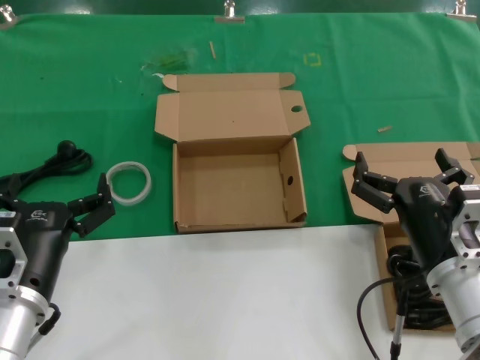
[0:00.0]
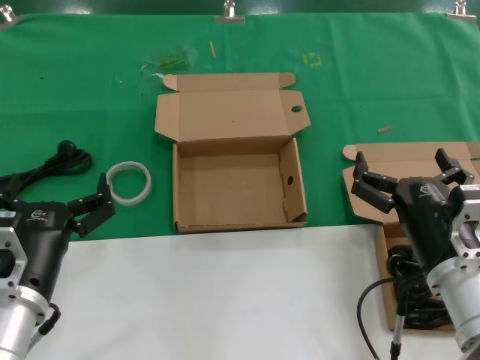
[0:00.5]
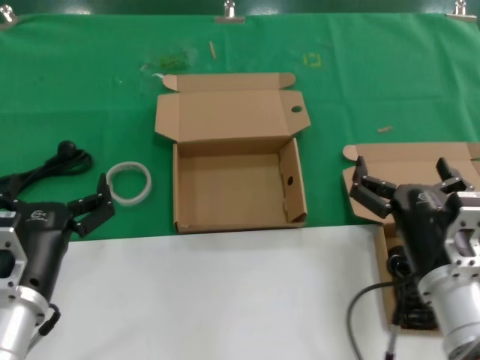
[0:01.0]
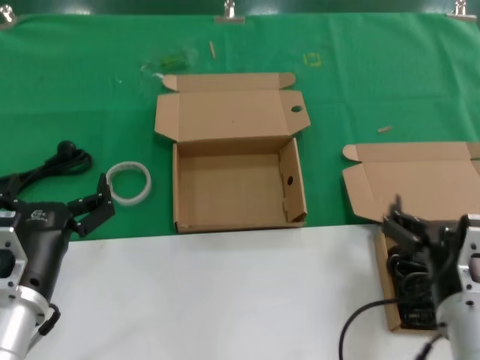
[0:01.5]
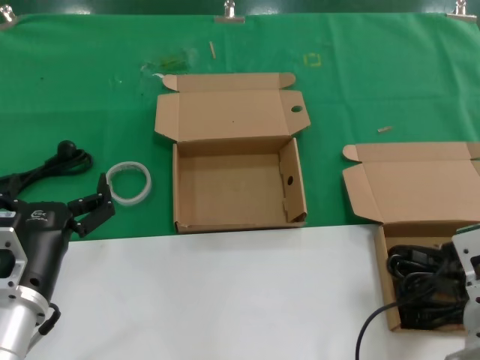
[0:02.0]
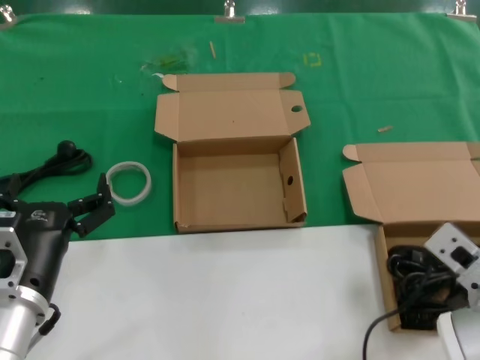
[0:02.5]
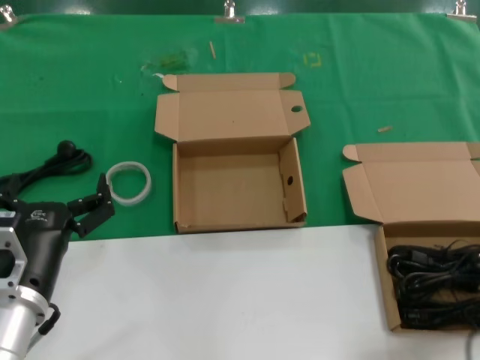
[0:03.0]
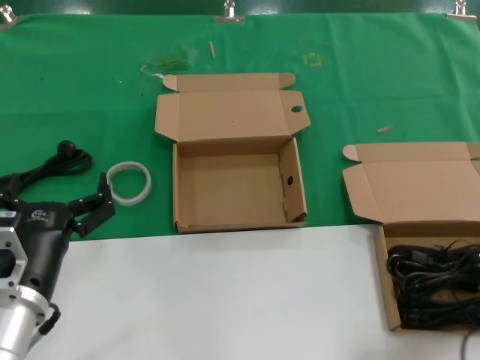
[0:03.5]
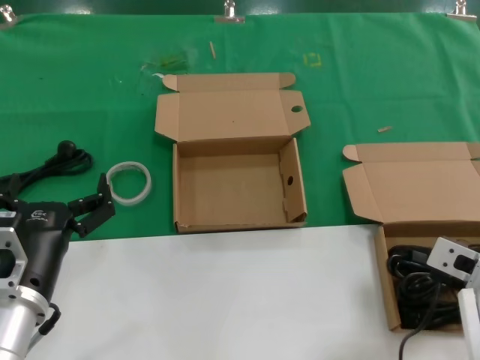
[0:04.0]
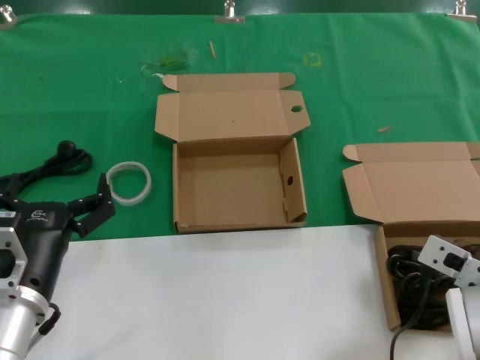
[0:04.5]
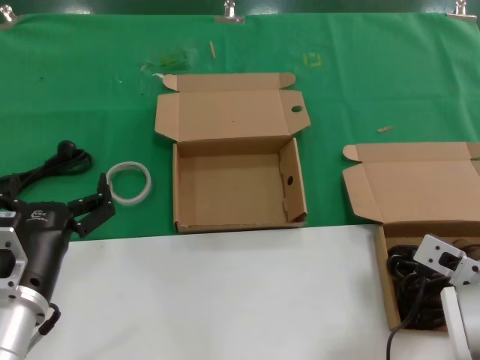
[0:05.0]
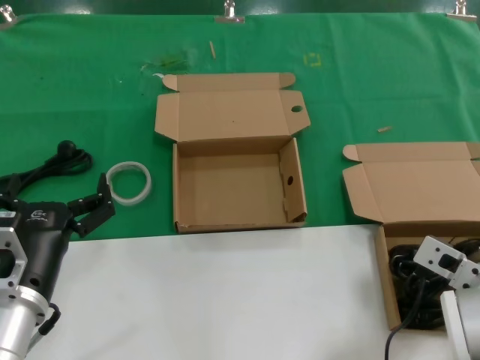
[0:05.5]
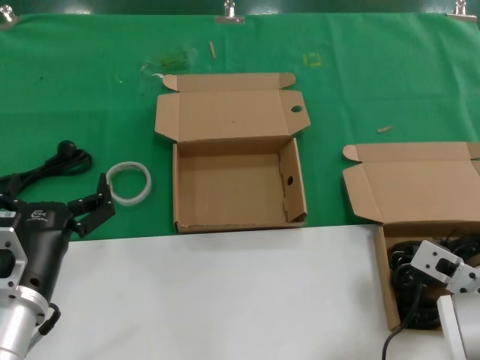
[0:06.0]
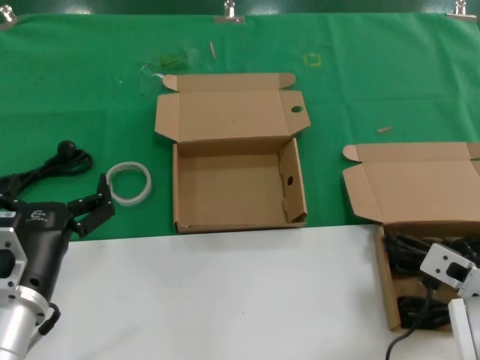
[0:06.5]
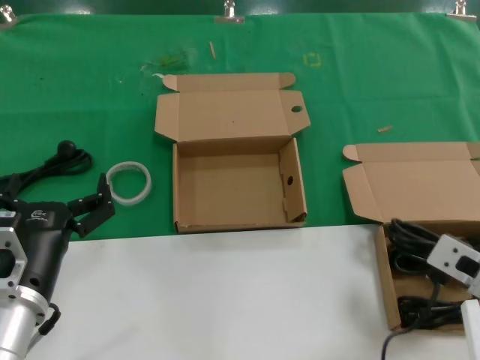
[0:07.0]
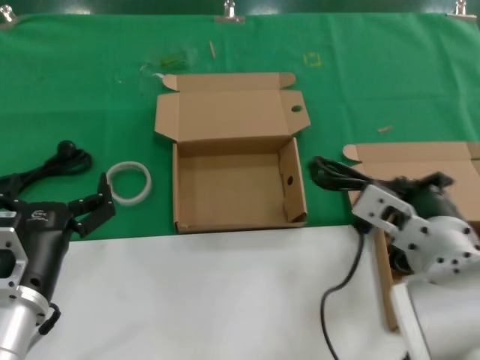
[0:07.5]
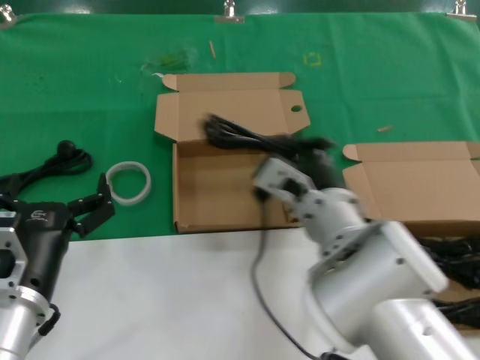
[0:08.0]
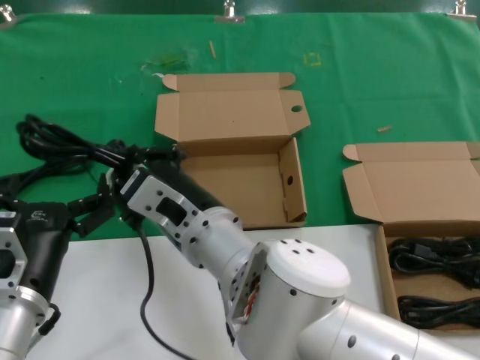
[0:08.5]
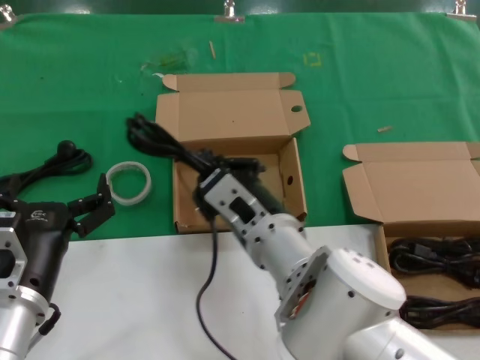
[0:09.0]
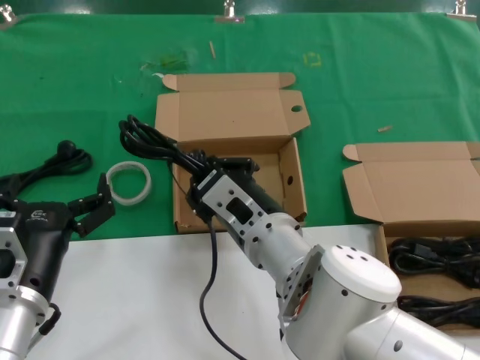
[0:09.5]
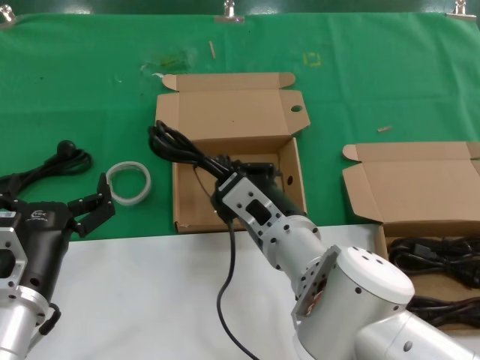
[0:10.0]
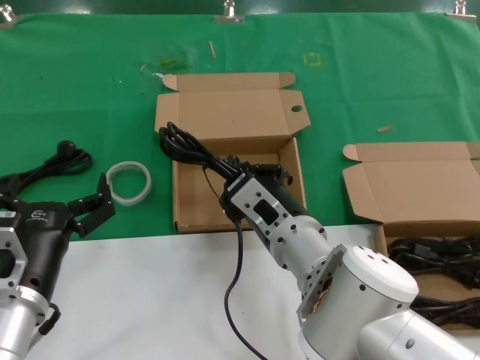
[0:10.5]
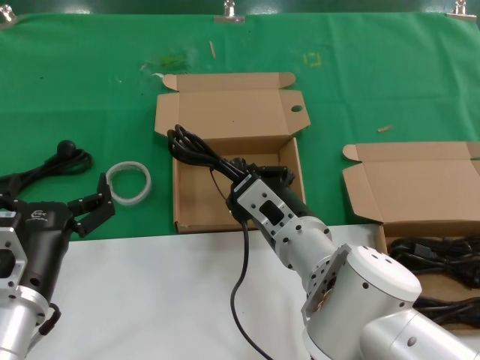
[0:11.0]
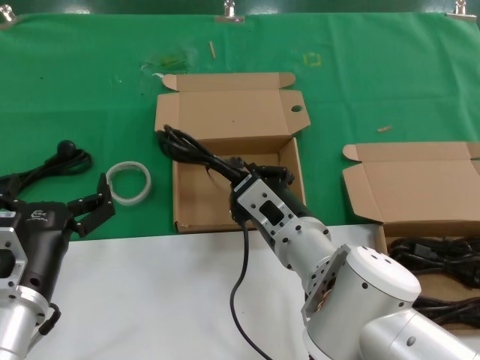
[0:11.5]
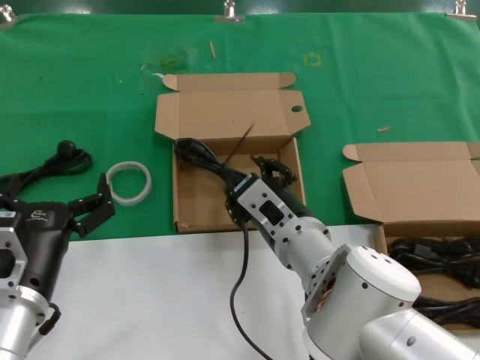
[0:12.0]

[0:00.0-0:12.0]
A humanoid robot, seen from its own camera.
Task of the whole recording: take the parts from the box containing them and put them into an empty box.
Step, 0:00.0 to 0:05.5: Grasp the data cable.
0:04.0 to 0:06.0: The hands make only small movements.
0:06.0 to 0:08.0: The right hand goes some 15 cm to the left.
0:10.0 to 0:12.0: The hands stay close to where they were, moving slightly.

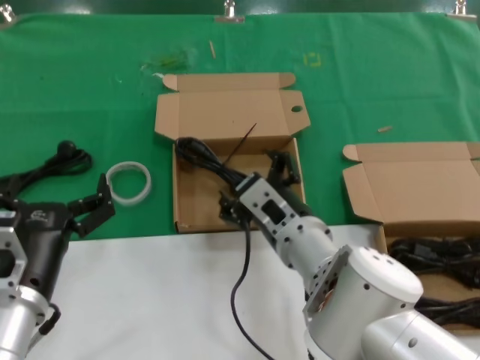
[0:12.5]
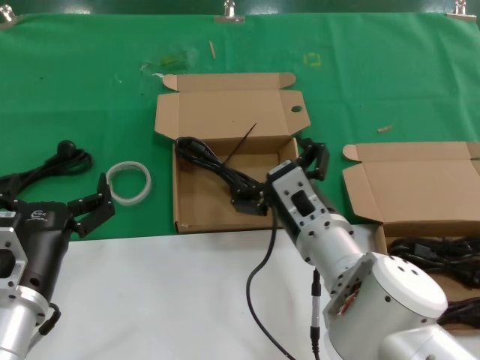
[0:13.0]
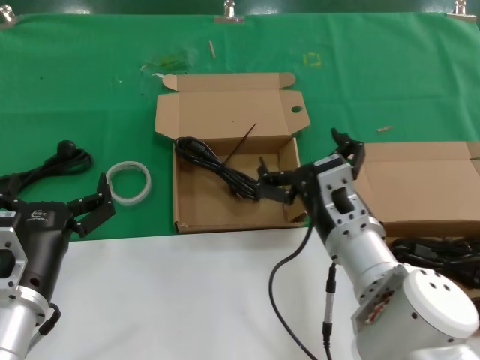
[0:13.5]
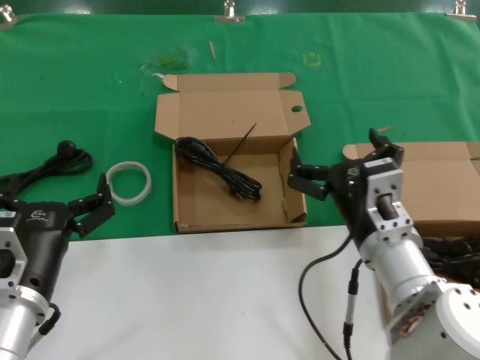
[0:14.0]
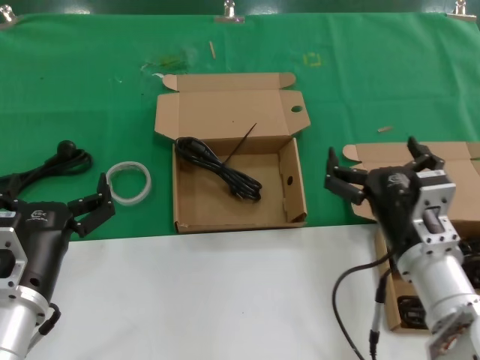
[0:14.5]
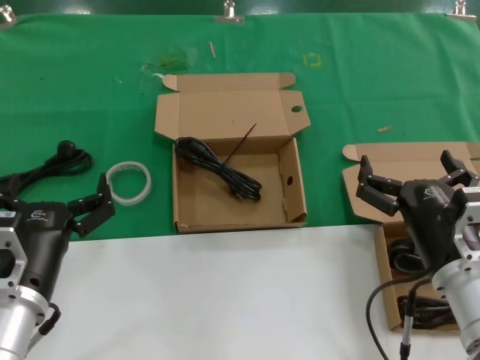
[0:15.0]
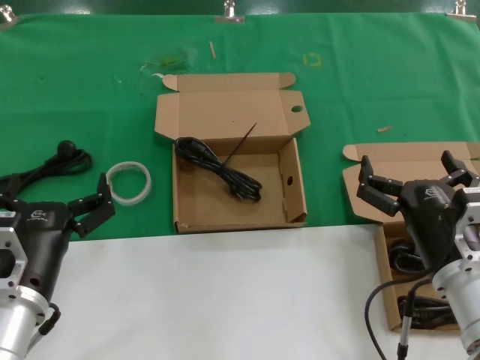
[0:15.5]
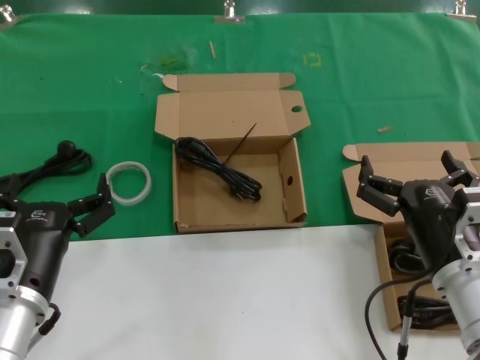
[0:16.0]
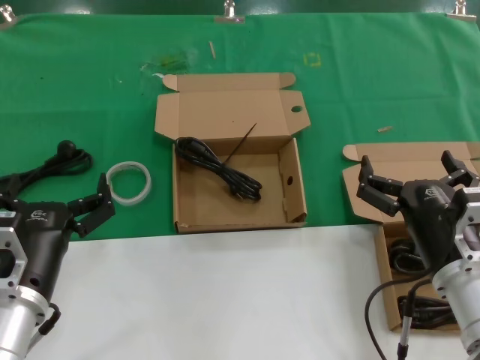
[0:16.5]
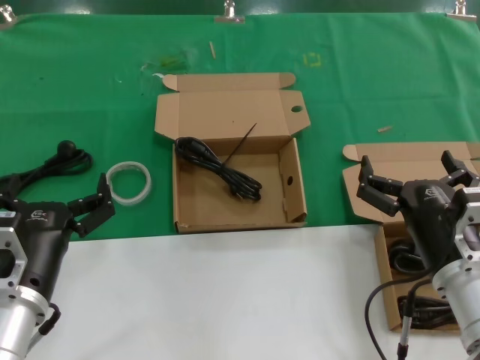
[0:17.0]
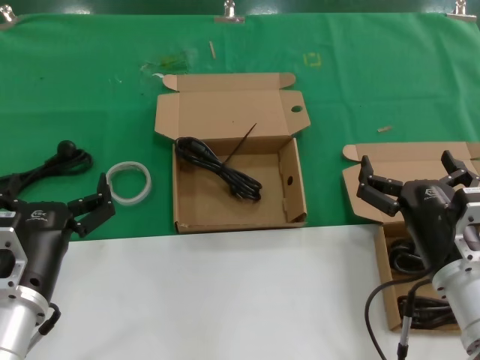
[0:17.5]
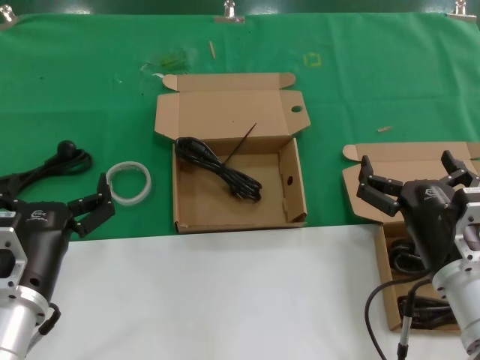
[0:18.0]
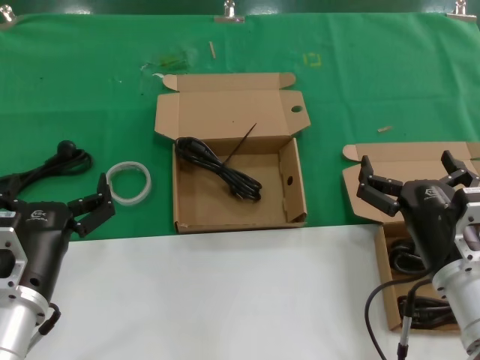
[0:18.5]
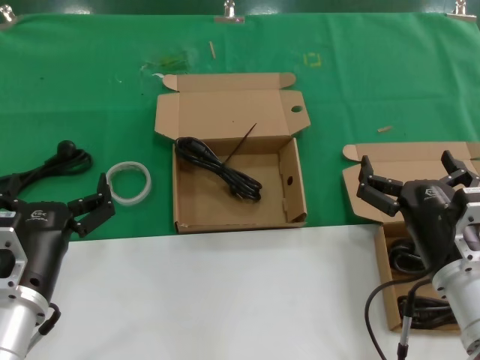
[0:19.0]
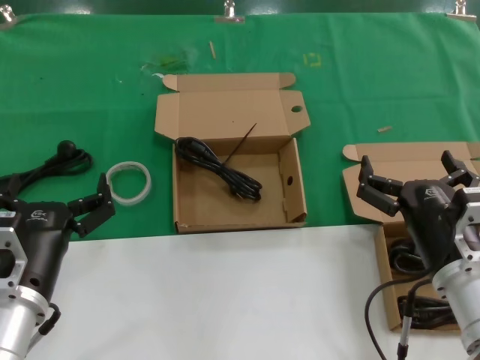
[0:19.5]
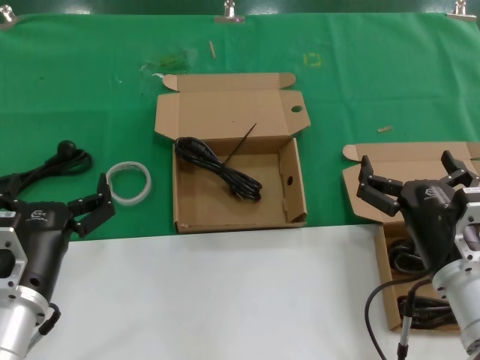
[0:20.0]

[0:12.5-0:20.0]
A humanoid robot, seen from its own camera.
Task of the whole recording: take the parts from the box containing them and put them into an empty box.
0:12.5 to 0:14.5: The right hand travels to the right by some 15 cm.
0:14.5 to 0:16.5: The hands move only a little.
0:16.5 to 0:20.0: Both hands stay about where they are.
